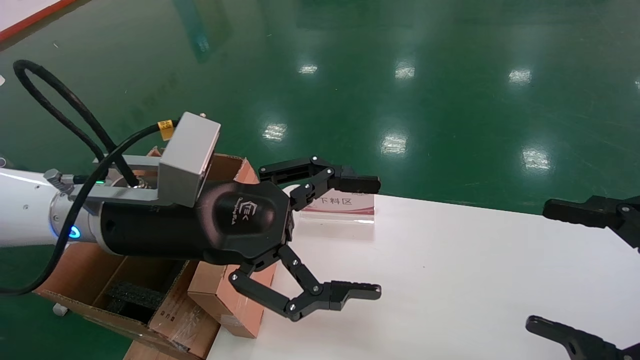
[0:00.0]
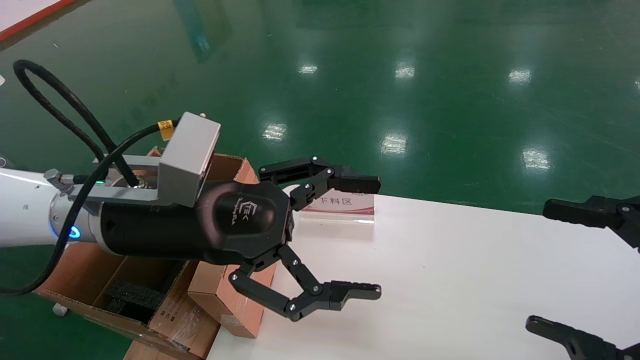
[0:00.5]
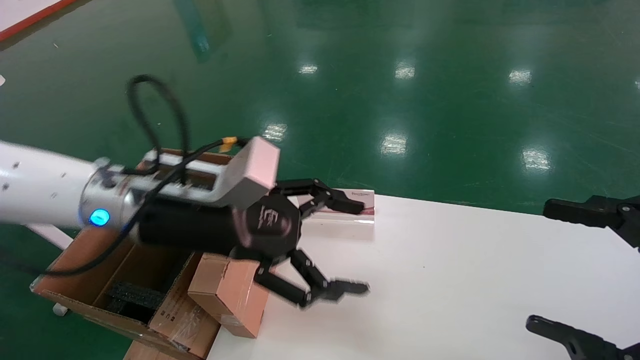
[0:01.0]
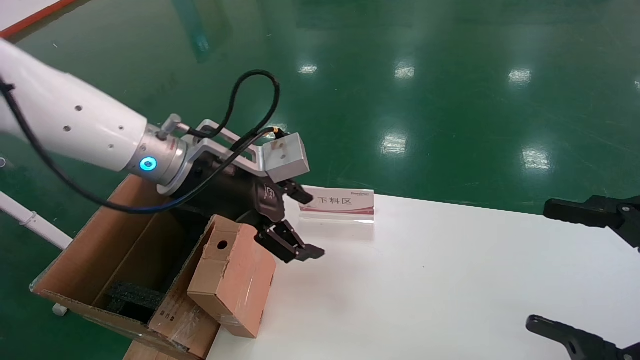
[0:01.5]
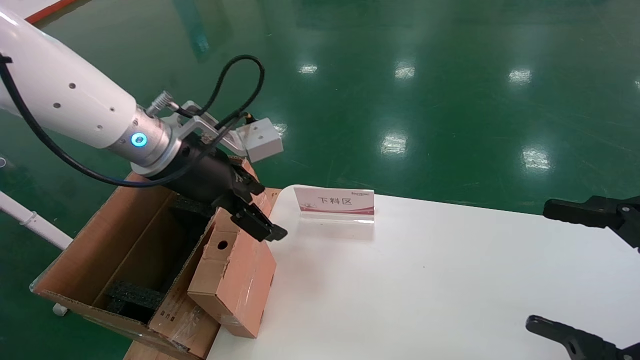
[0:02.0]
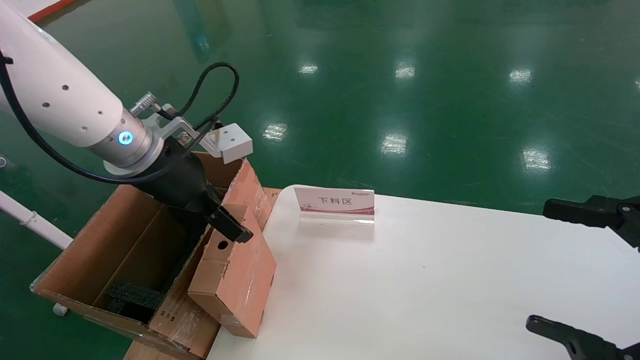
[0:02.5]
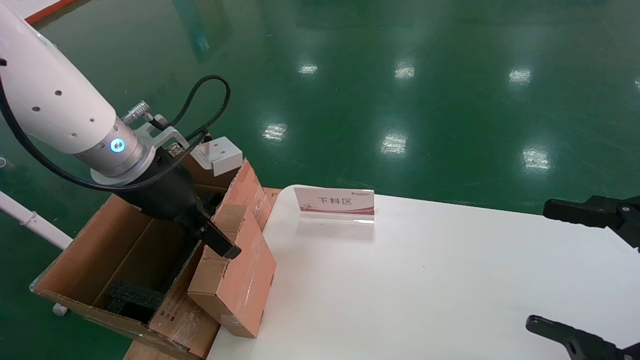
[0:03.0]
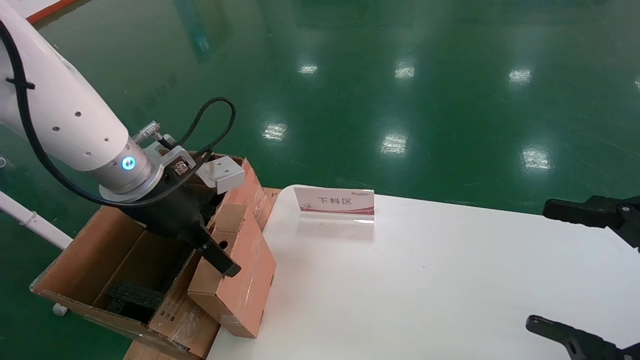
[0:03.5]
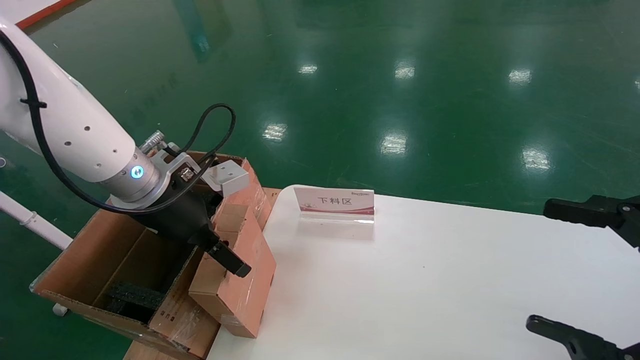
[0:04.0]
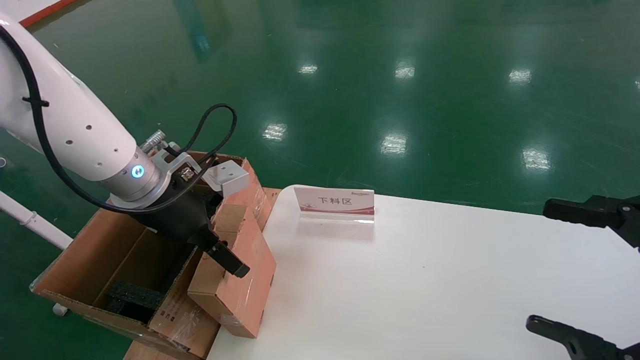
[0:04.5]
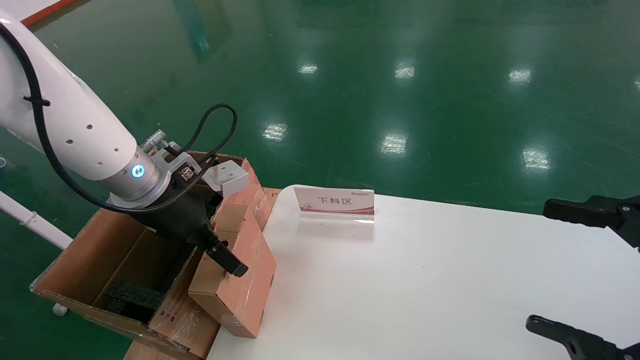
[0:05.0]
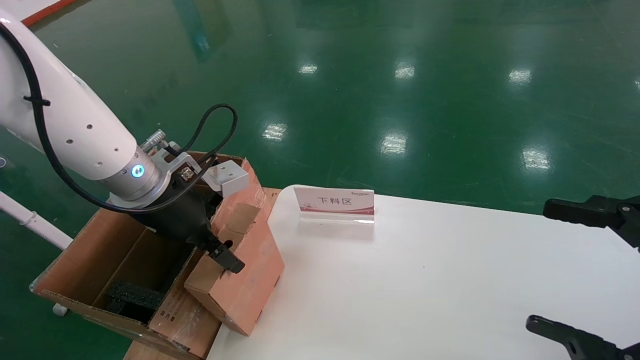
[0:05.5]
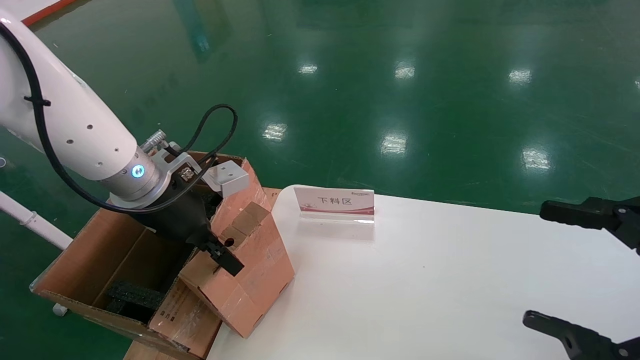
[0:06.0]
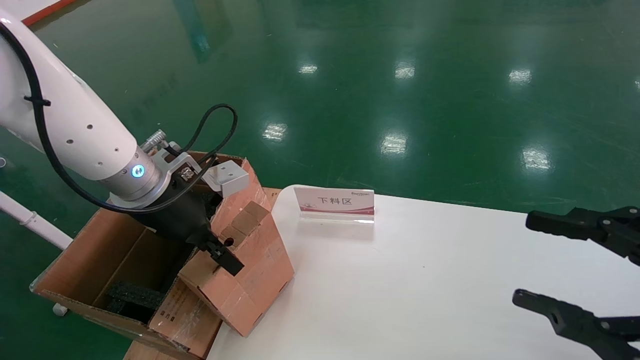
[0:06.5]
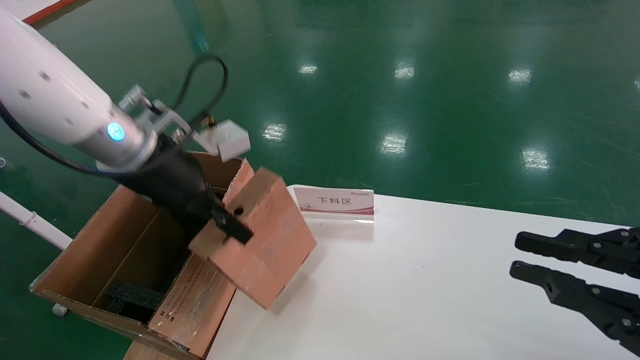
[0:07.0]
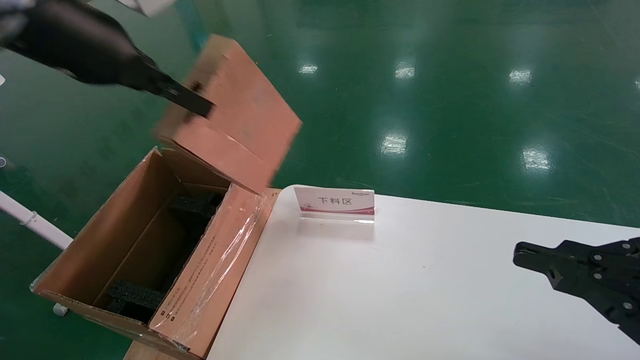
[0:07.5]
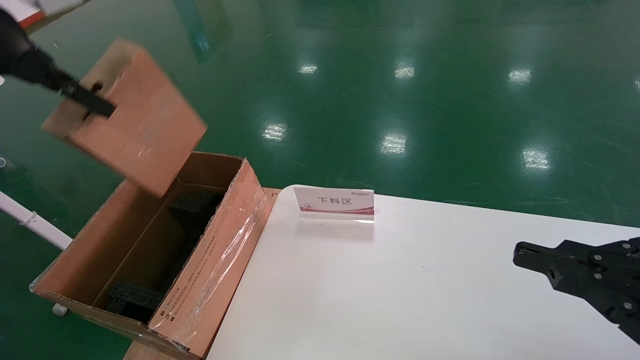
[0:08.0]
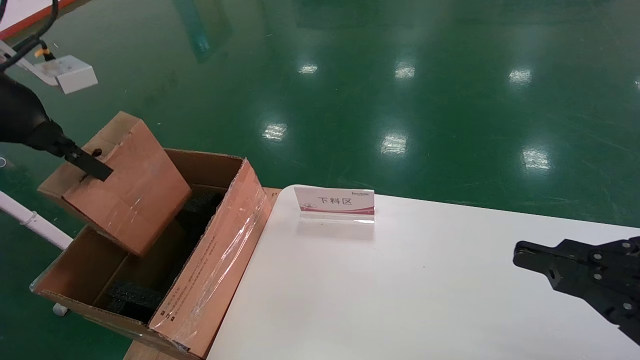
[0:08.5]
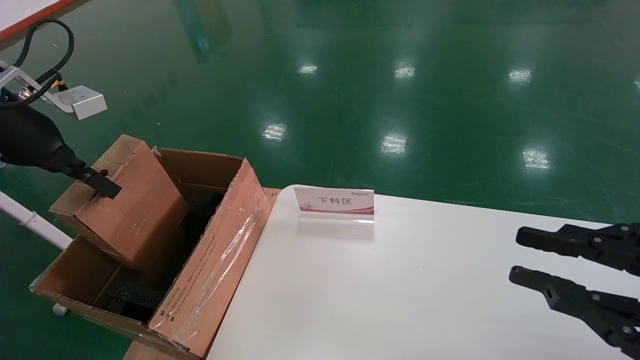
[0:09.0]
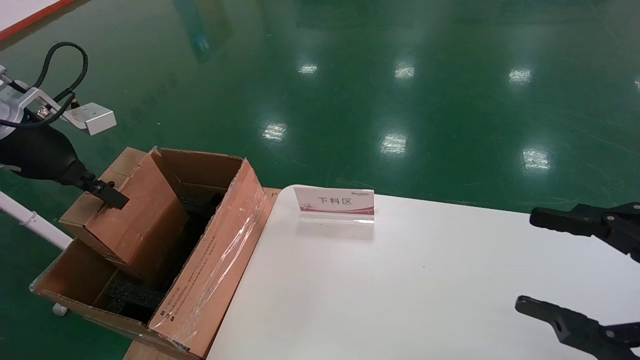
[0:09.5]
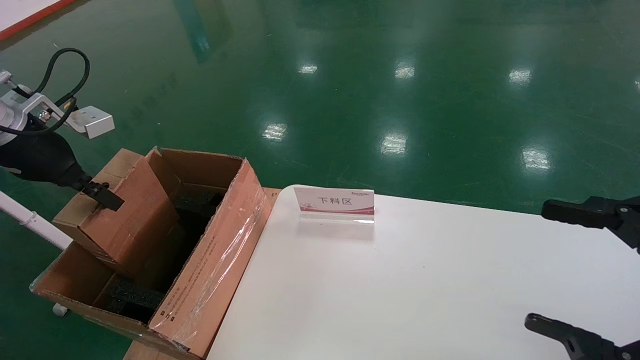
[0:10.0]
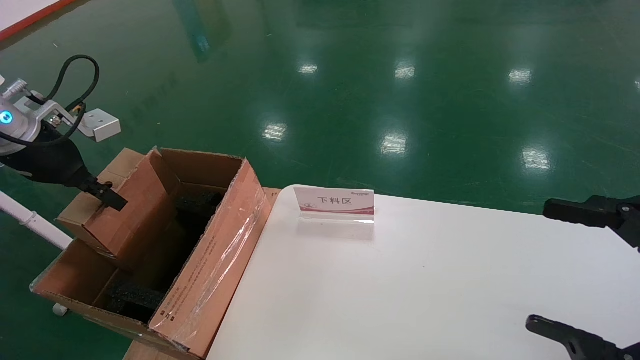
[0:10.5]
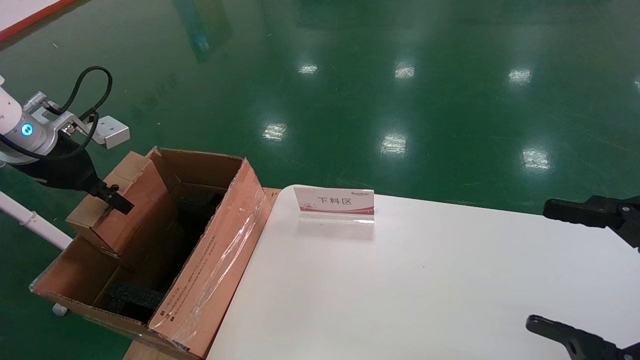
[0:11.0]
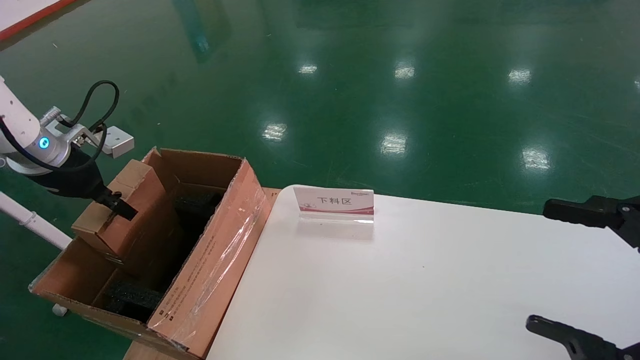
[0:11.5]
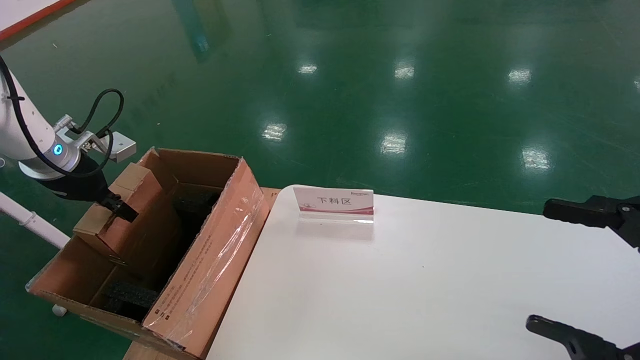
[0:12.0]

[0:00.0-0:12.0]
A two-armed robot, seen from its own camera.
Task of the whole recording: pick up the small cardboard box and load it into the large cardboard box.
Step, 0:01.0 to 0:05.5: Pick up the mouse and power cord box.
0:00.0 to 0:02.0: The left gripper shifts about 10 cm forward.
0:04.0 to 0:06.0: The left gripper closes up.
0:06.0 to 0:08.0: The right gripper closes up, while the left gripper heads upward and to the left, covering approximately 25 cm.
0:08.0 to 0:10.0: The left gripper travels downward and to the left by some 15 cm. Meanwhile the right gripper opens.
0:10.0 to 0:12.0: The left gripper travels downward and forward by about 10 cm.

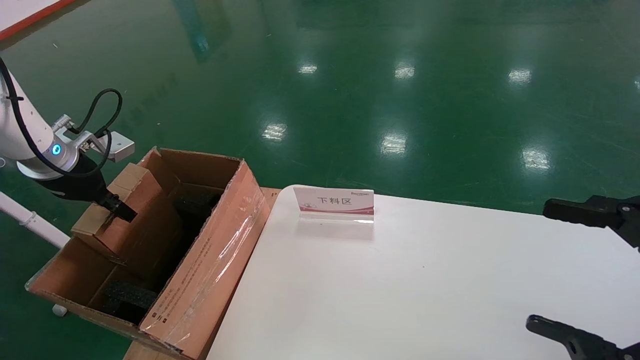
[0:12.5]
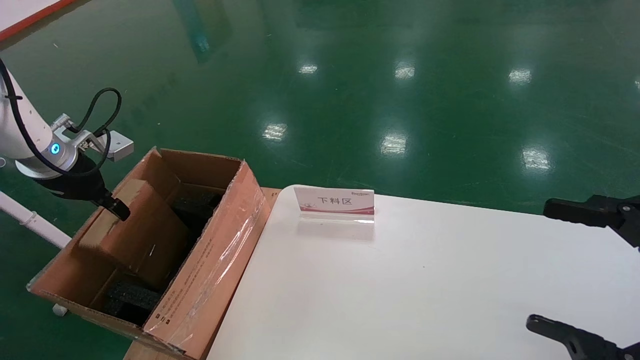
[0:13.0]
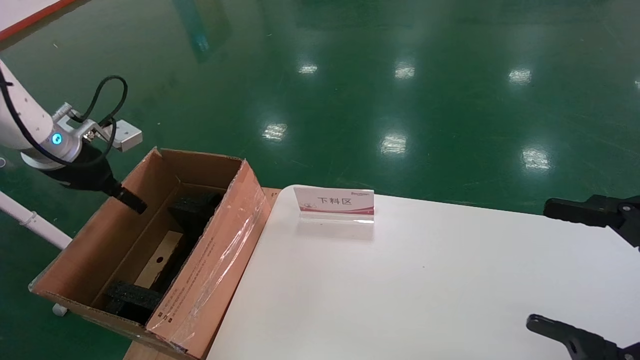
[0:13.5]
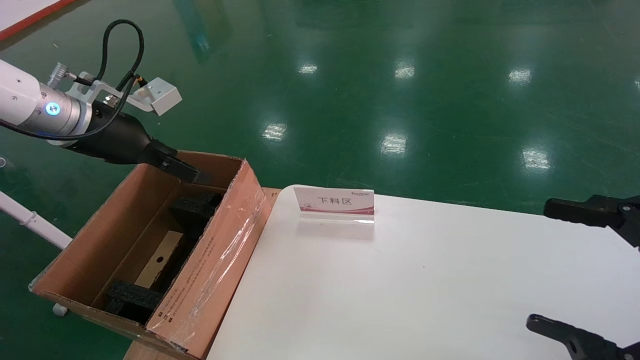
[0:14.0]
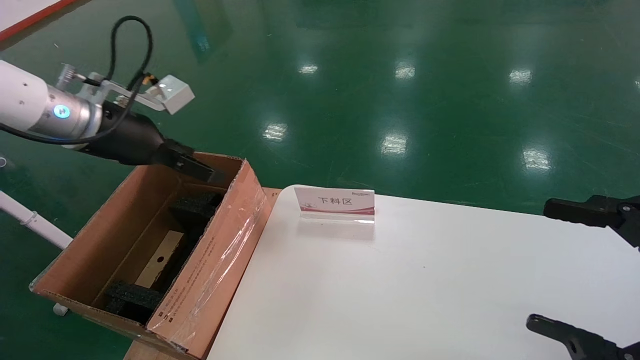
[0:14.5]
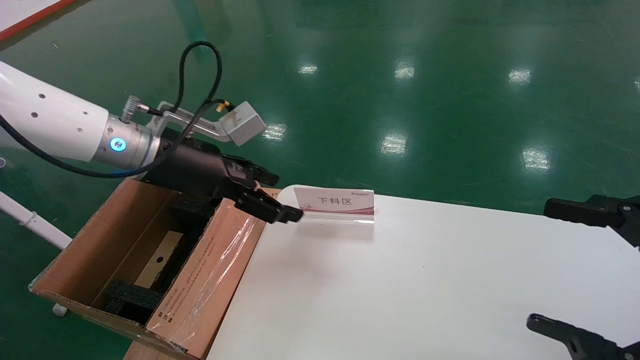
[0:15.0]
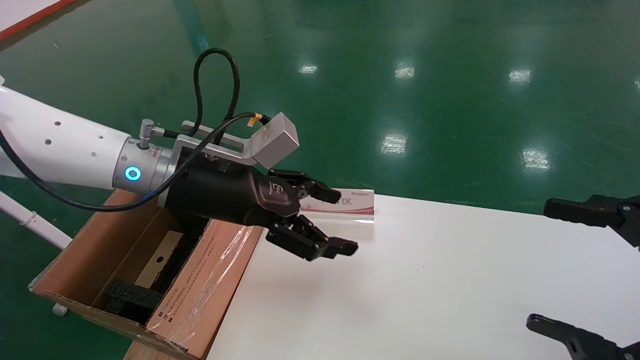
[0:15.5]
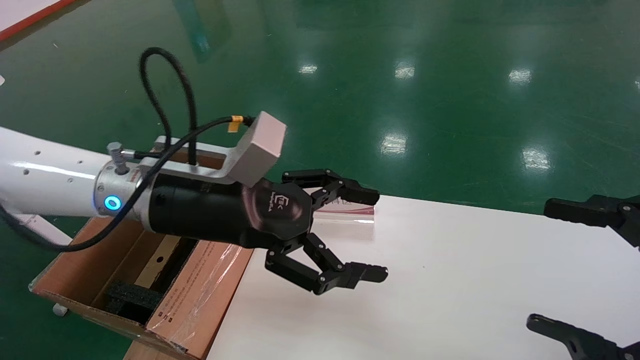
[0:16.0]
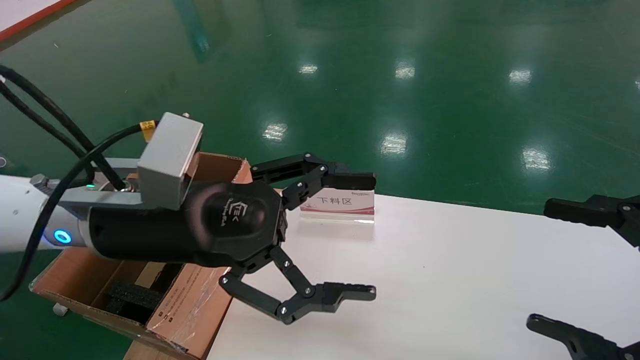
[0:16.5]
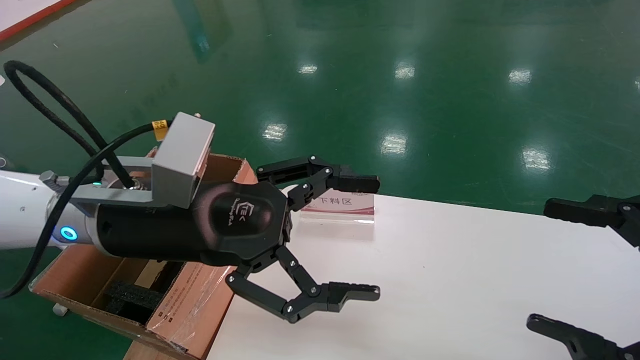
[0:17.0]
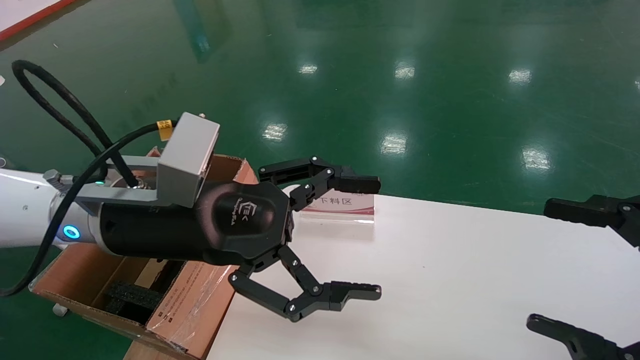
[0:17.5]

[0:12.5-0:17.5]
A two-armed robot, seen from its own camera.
Task of the whole recording: pick up the small cardboard box and load it into the large cardboard box.
0:12.5 to 0:15.0: The left gripper is displaced to the right by some 20 cm, and opens up.
0:15.0 to 0:17.5: The left gripper shifts about 10 cm backward and to the right.
